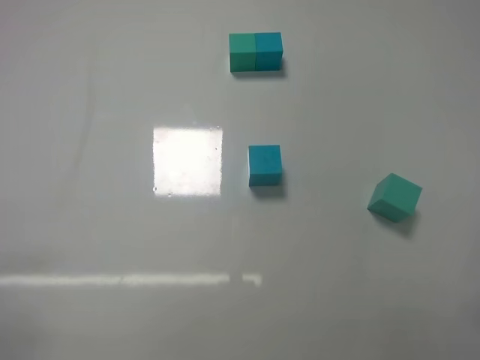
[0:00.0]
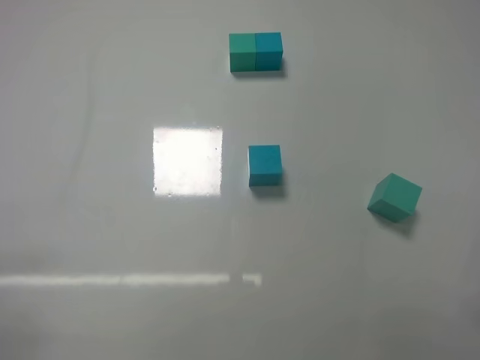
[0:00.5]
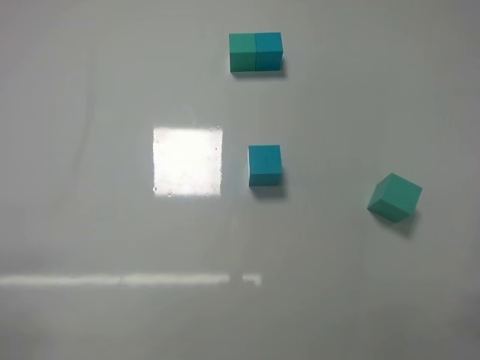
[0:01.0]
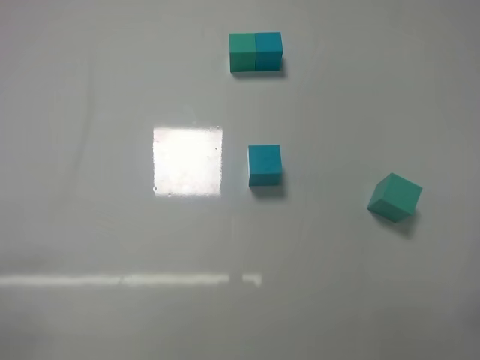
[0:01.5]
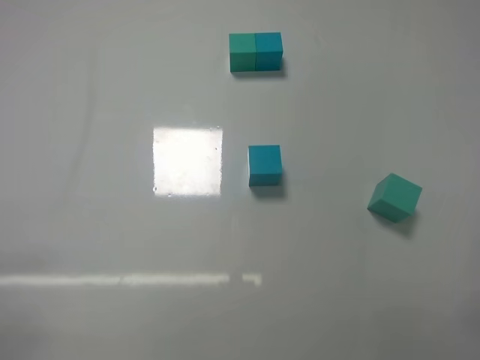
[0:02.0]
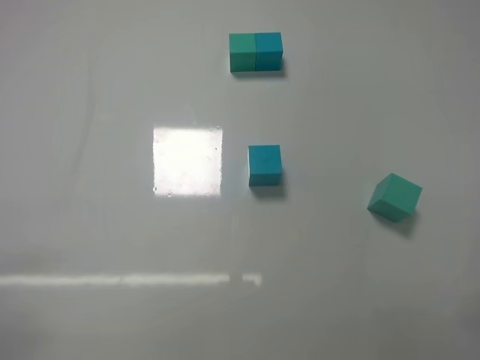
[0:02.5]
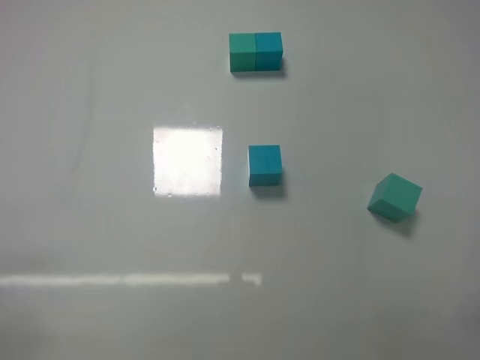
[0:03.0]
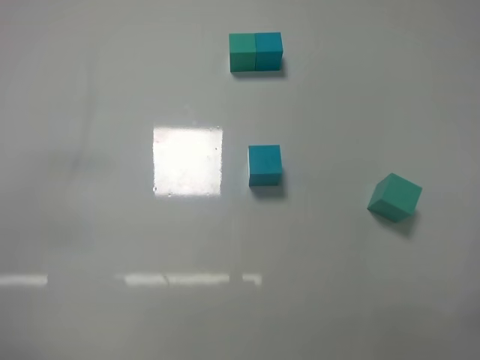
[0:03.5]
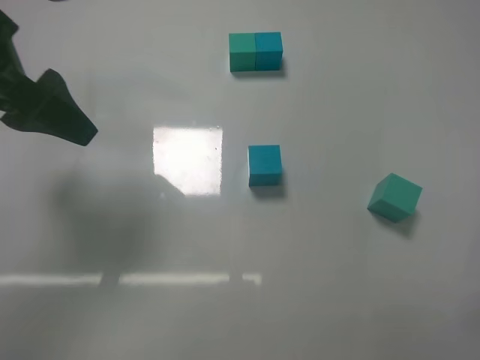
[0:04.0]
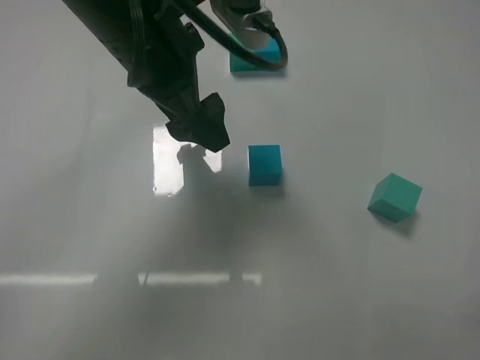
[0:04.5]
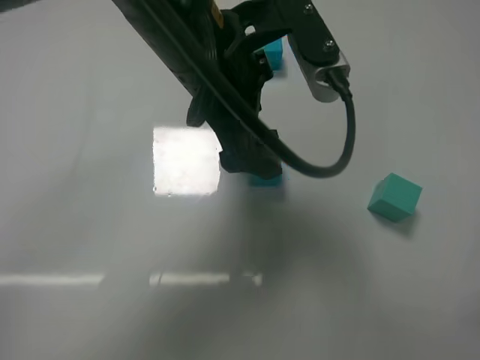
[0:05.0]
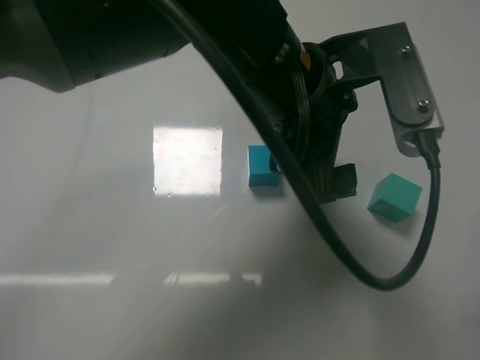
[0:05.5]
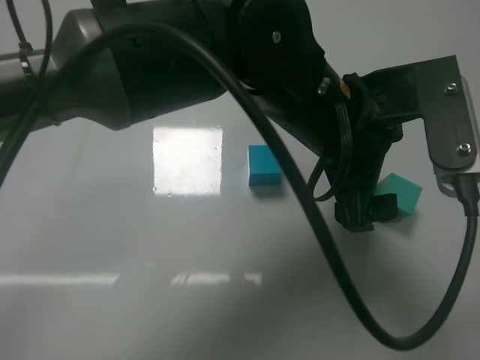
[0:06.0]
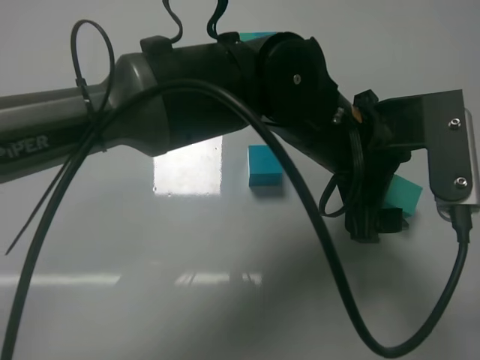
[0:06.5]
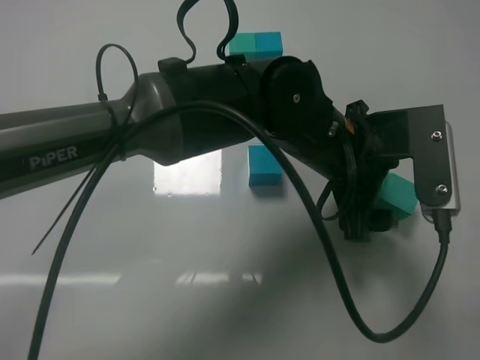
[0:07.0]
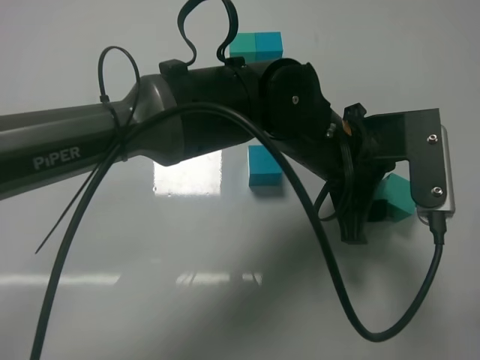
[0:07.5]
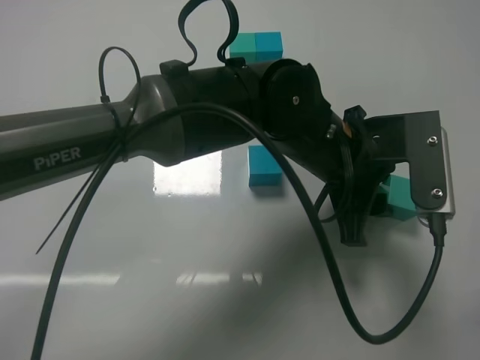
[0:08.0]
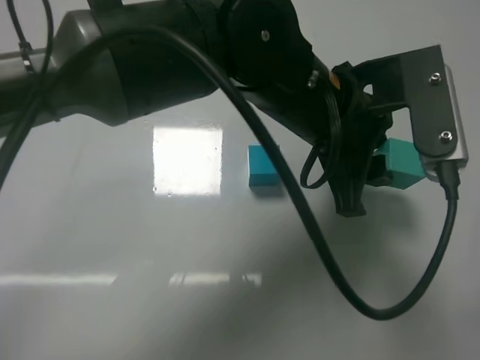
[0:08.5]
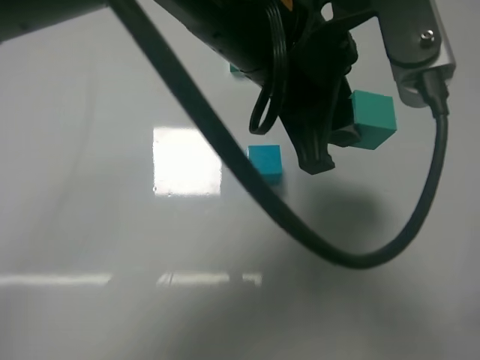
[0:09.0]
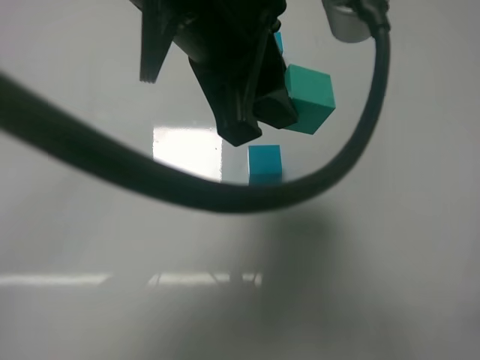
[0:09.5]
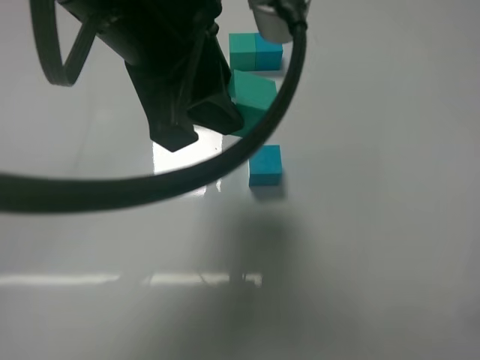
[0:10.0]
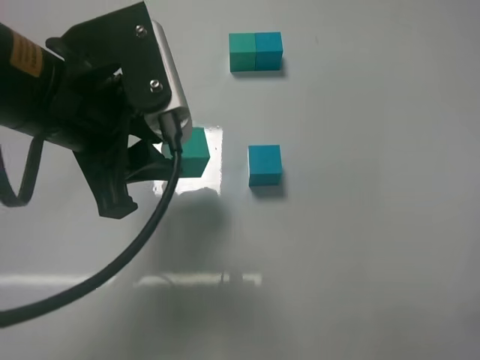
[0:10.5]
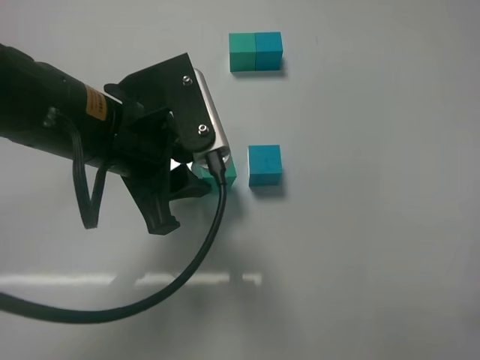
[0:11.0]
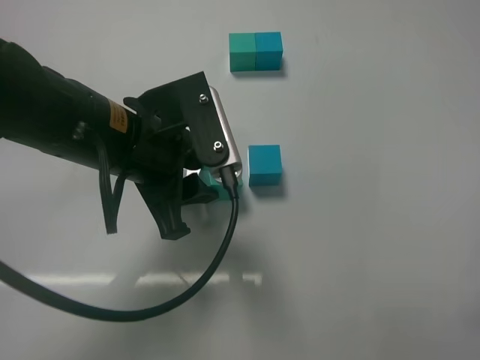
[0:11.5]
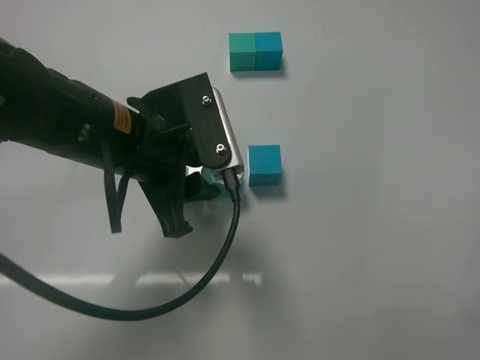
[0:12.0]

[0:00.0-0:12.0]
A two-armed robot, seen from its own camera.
Task of the whole recording: According to the building block template in front, assemble the scattered blocks together.
Step, 0:00.0 to 0:07.5: Grasp the green block with left gripper.
0:02.0 to 0:04.0: The left gripper shifts about 30 cm forward and upward.
0:04.0 to 0:06.0: The left gripper moves to the right, some 30 cm.
0:06.0 to 0:08.0: The left gripper changes place by approximately 5 cm, and closes its fingers.
0:08.0 to 0:10.0: The left gripper heads to the left, upward and backward, covering approximately 25 cm.
0:10.0 to 0:12.0: The left gripper moves downward, approximately 10 cm.

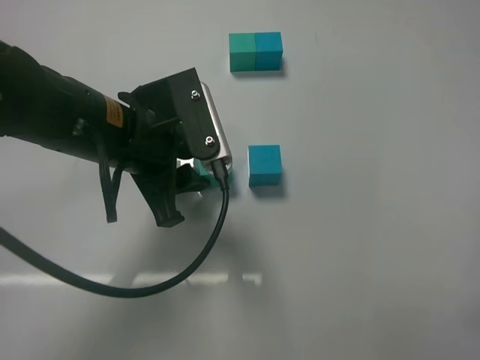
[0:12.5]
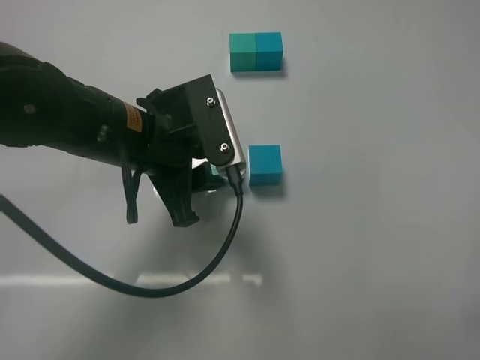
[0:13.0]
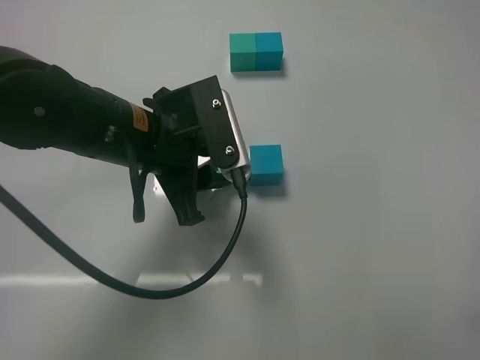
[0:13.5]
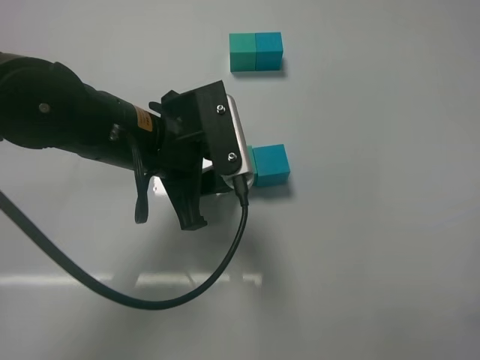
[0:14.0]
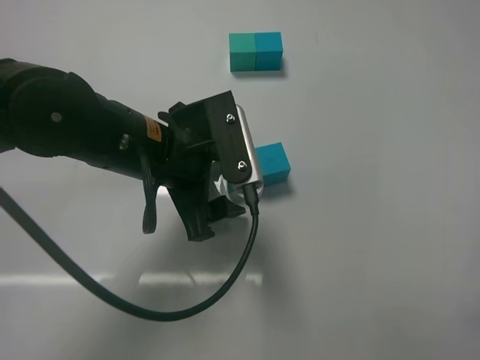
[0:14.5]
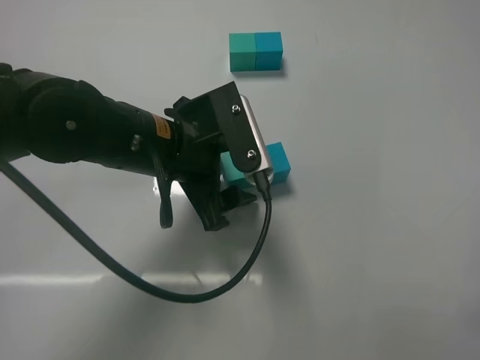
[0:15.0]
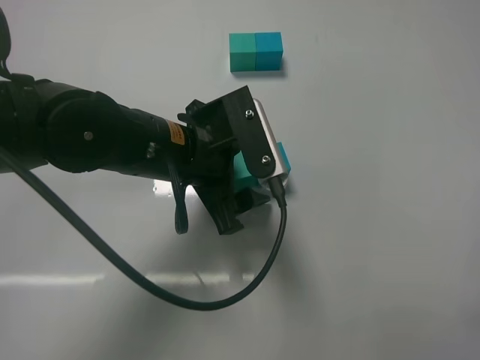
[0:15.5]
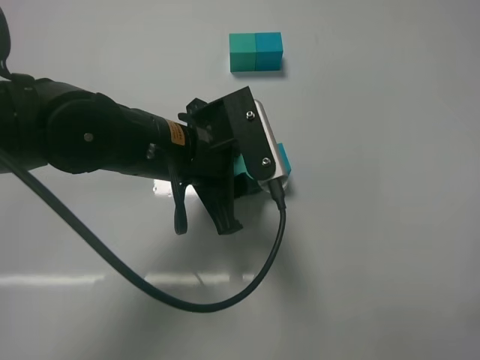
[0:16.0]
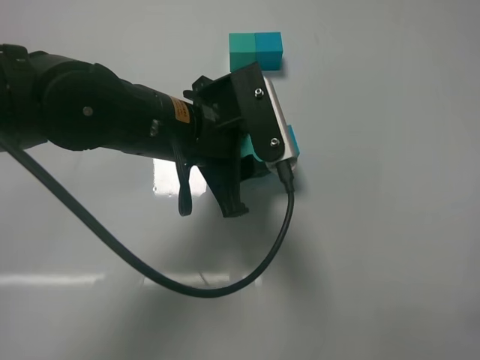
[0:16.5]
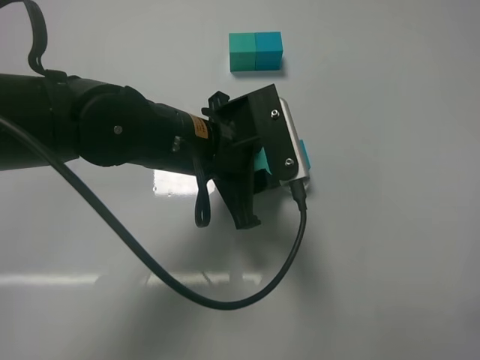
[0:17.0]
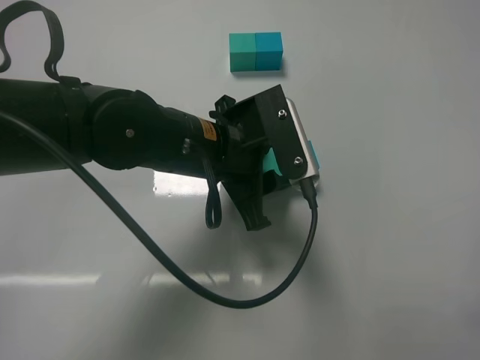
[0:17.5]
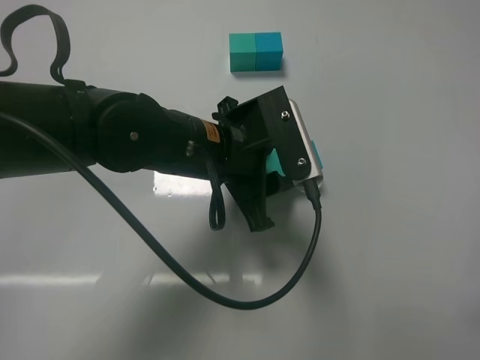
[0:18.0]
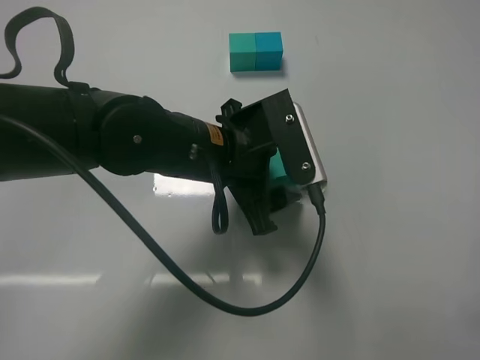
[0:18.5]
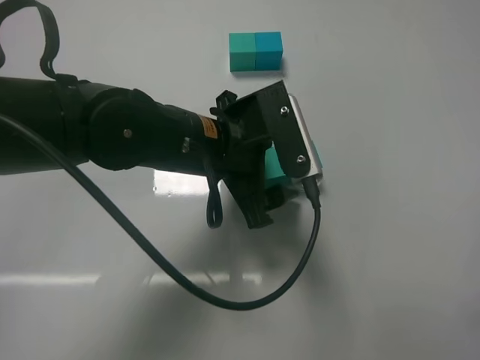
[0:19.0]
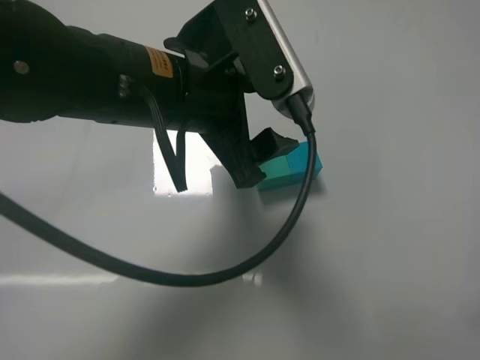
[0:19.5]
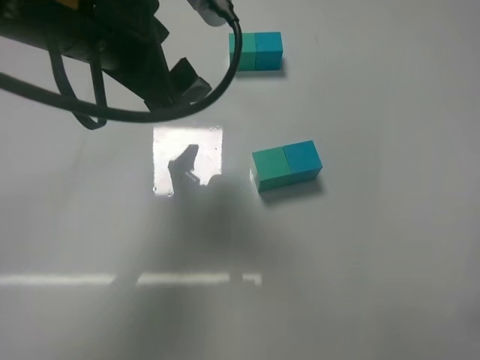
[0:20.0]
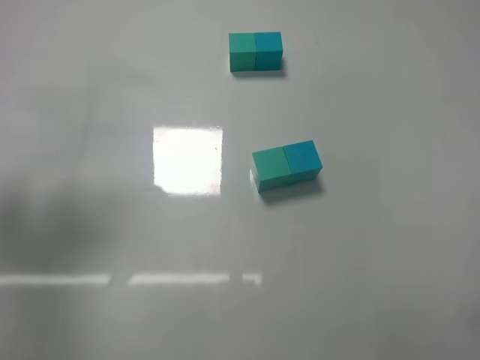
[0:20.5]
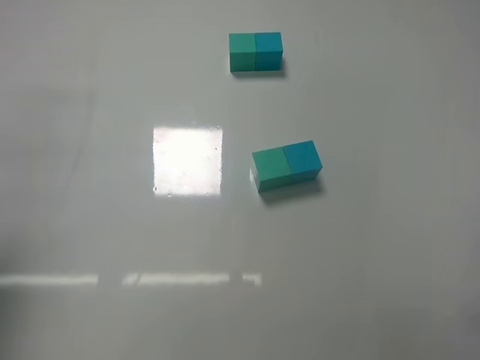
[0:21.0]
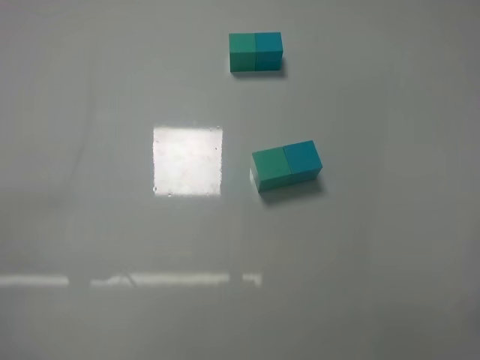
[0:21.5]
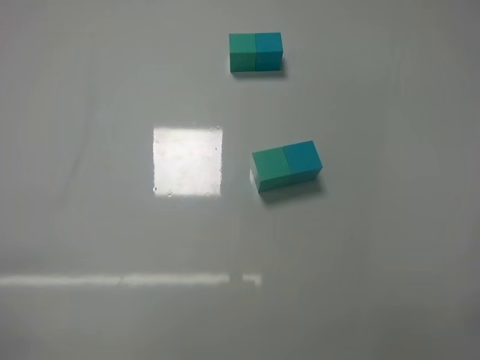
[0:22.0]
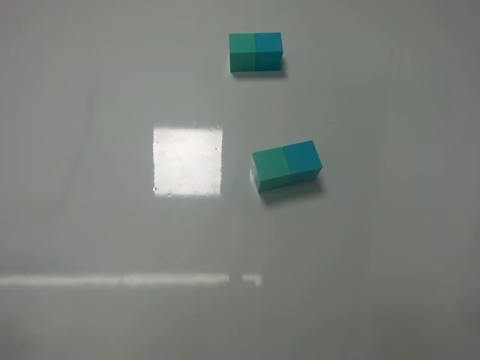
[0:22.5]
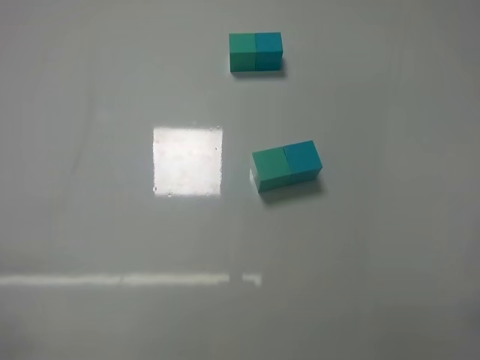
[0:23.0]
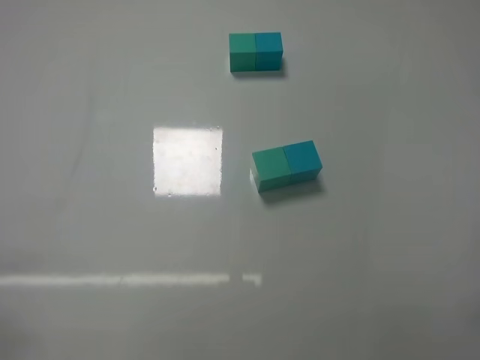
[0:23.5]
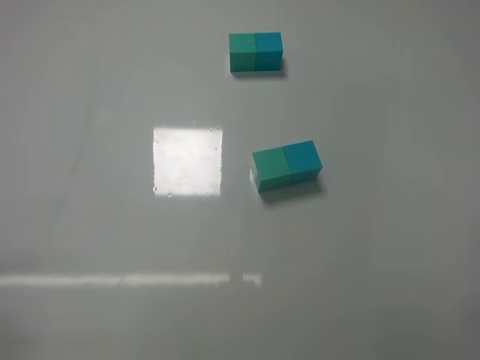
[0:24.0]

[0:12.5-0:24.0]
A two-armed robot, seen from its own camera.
Task of the whole recording: According to the building block template in front, assemble the scattered blocks together.
Step, 0:12.5 to 0:14.5: Put the green cube on the left of the blue cube with the left gripper.
Step, 0:15.0 to 0:18.5: Put the blue cube and green cube in the center of the table with the left gripper.
0:12.5 to 0:14.5: The left gripper opens. The right gripper closes its fingers.
0:14.5 to 0:16.5: The left gripper closes up.
0:16.5 to 0:18.5: The left gripper opens.
0:18.5 to 0:20.0: The left gripper moves upward and to the left, approximately 15 cm.
0:20.0 to 0:22.0: The left gripper goes approximately 35 cm backward, to the left and downward.
